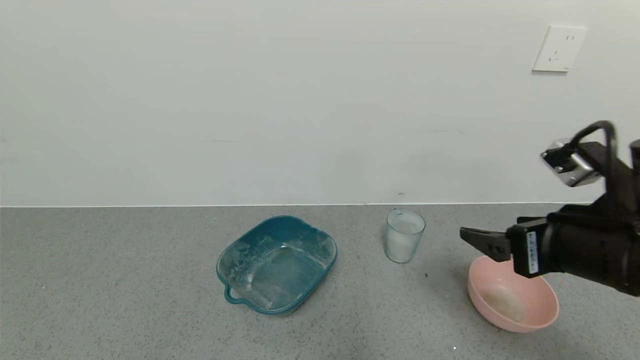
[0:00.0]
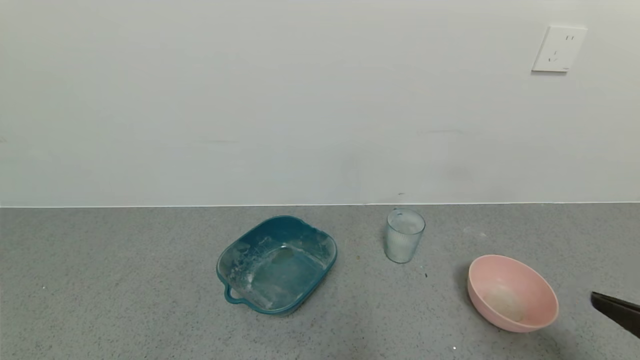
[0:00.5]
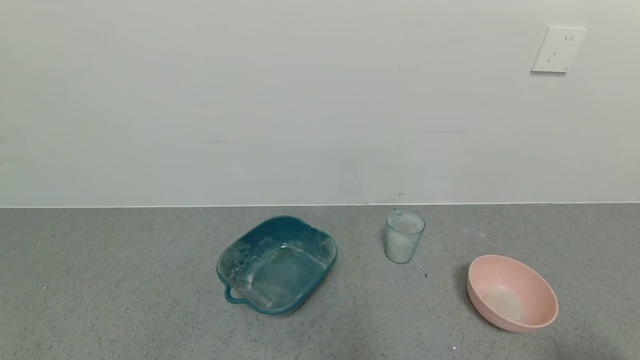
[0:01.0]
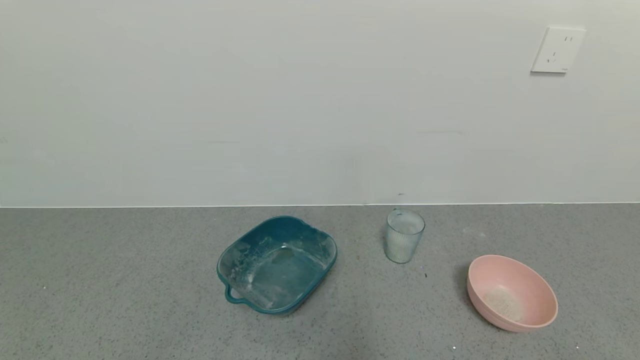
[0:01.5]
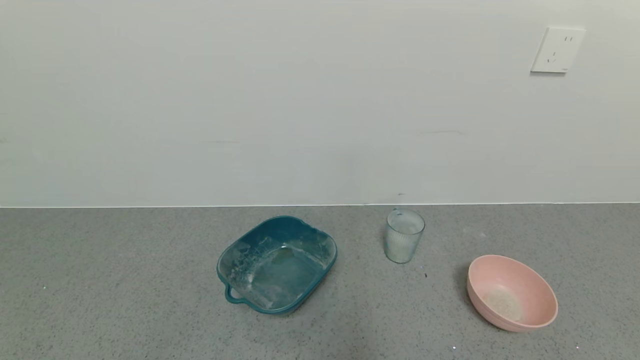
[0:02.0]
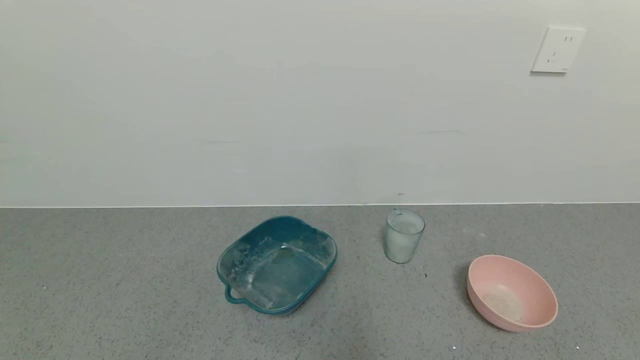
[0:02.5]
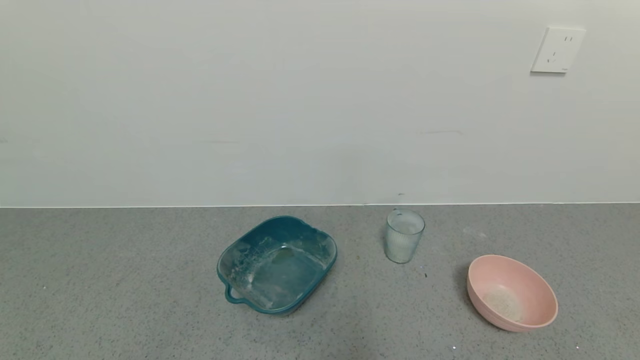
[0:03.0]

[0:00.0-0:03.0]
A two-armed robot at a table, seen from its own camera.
Task of the whole recording: use a gripper to pick up the cup and pour the powder into a bowl or tray.
0:00.0 to 0:01.5: The right gripper is displaced backward and to the right by some 25 cm.
